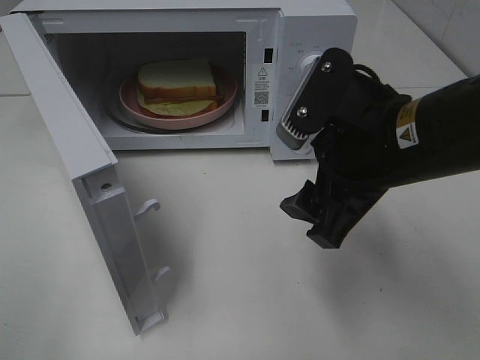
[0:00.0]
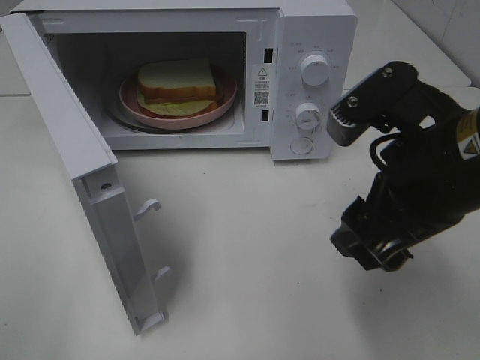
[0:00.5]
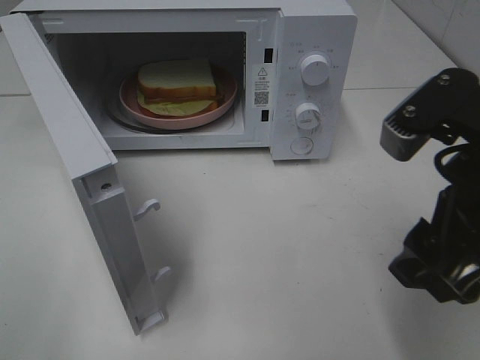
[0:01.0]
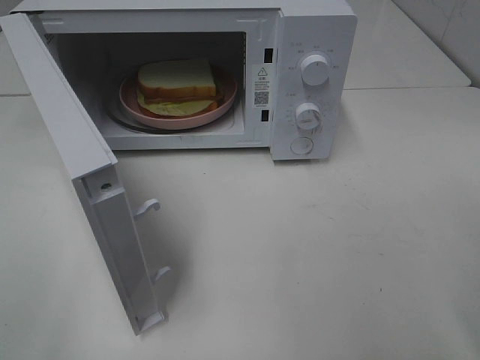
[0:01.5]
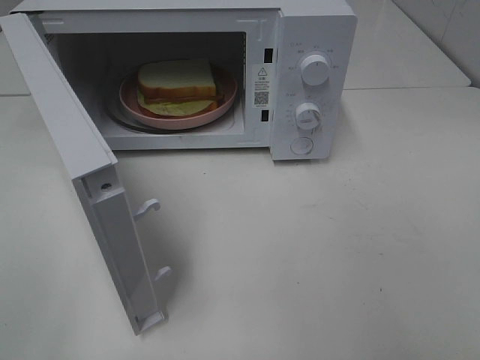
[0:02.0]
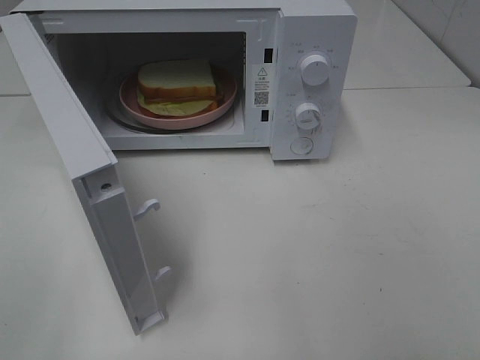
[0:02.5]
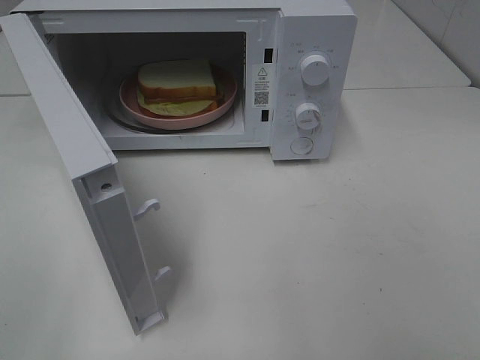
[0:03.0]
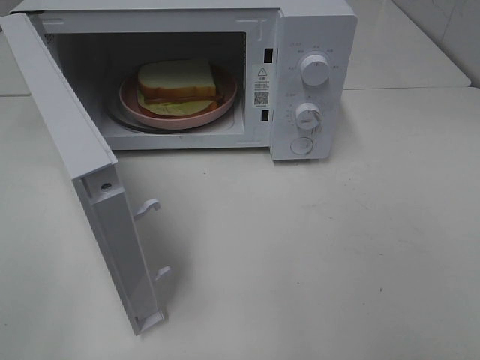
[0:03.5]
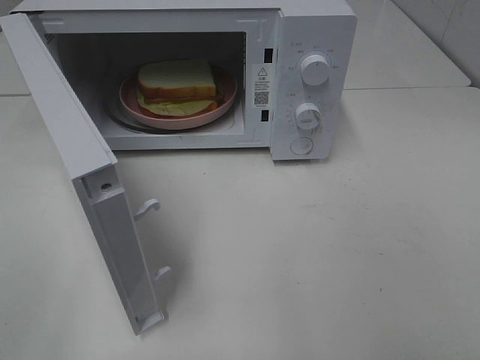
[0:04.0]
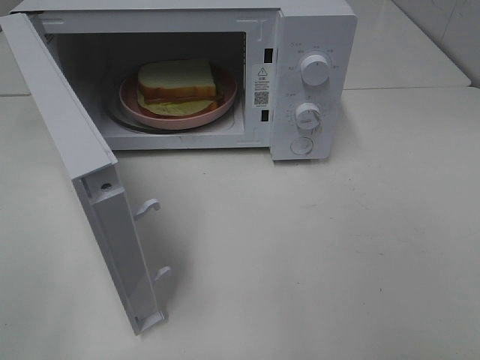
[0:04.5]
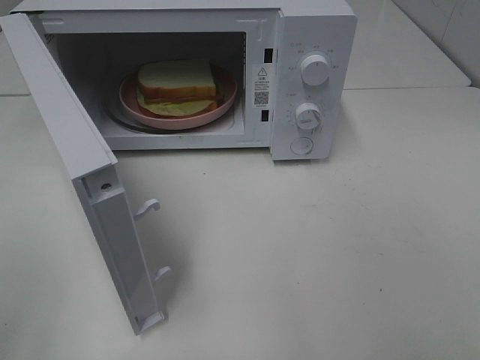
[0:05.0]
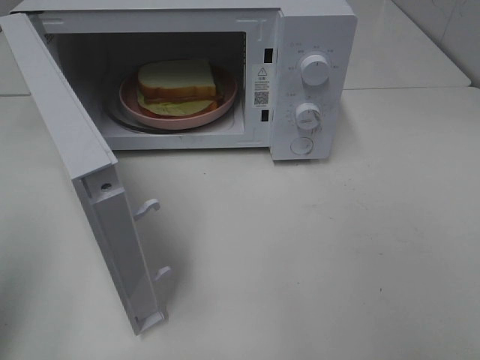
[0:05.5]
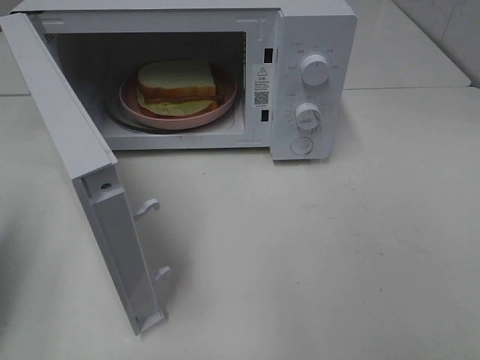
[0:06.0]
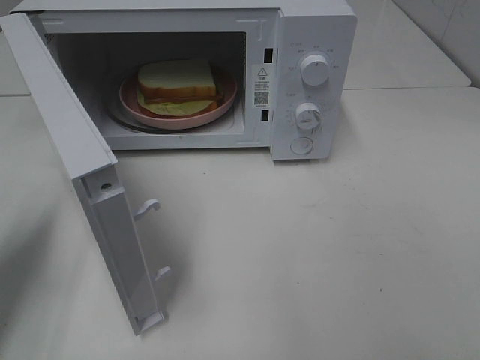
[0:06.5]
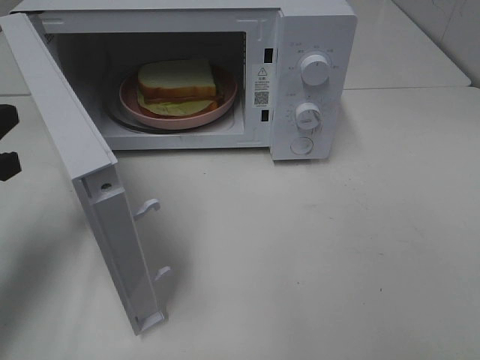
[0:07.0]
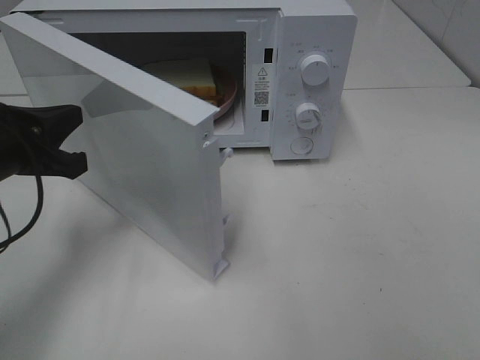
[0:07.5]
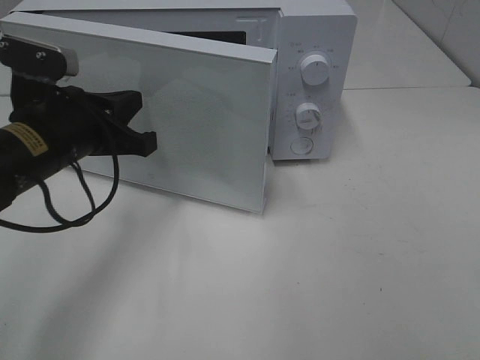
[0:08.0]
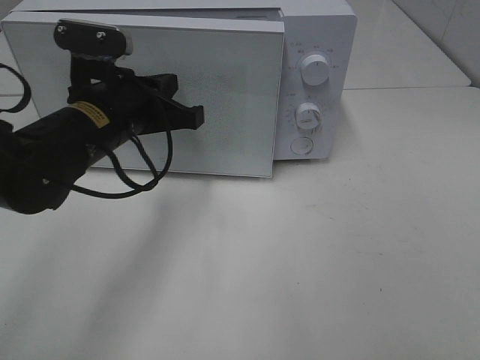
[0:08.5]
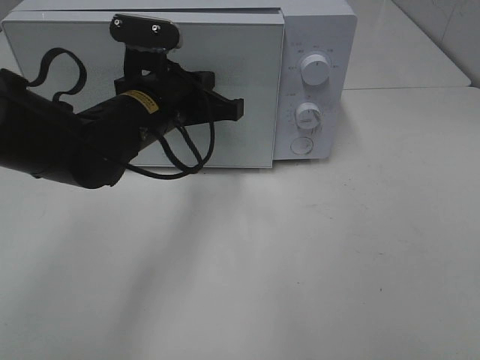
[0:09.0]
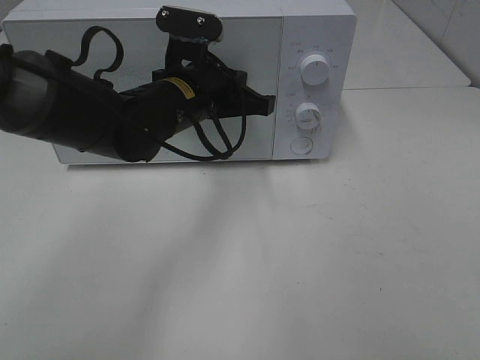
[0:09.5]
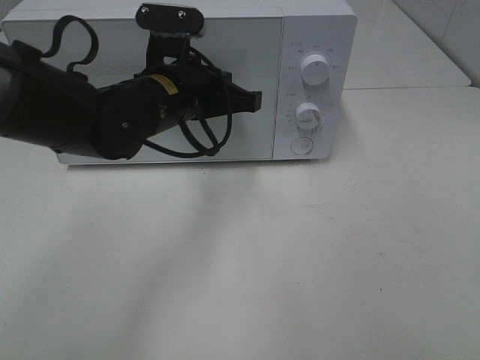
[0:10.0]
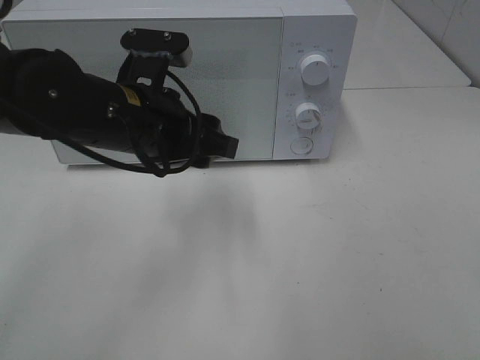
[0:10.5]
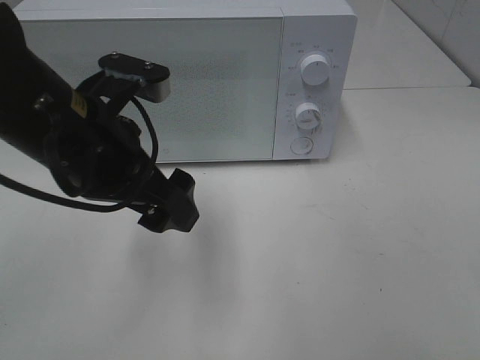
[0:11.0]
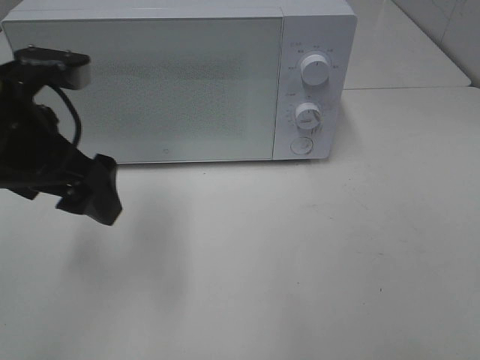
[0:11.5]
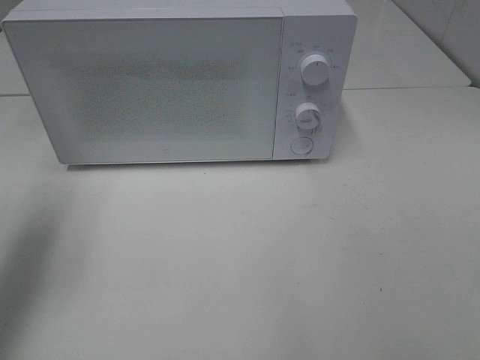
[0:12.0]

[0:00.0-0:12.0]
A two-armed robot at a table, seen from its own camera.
Task of the whole recording: Heat Sandwich.
Step, 0:00.0 to 0:10.0: Left hand: close the microwave door.
0:00.0 to 0:02.0: The right gripper heads to the right and backward, covering approximately 20 cm.
0:04.0 to 0:06.0: The left gripper moves forward, approximately 15 cm, and closes.
0:06.0 to 0:08.0: The left gripper travels to the right, forward and downward by roughly 20 cm.
0:08.0 to 0:10.0: The left gripper goes roughly 10 cm to the right and forward.
0:10.0 to 0:12.0: The left gripper is displaced to the left by about 25 cm, and opens.

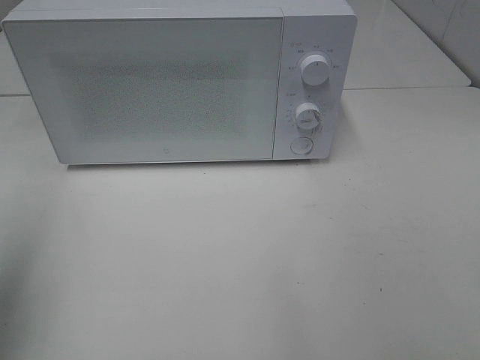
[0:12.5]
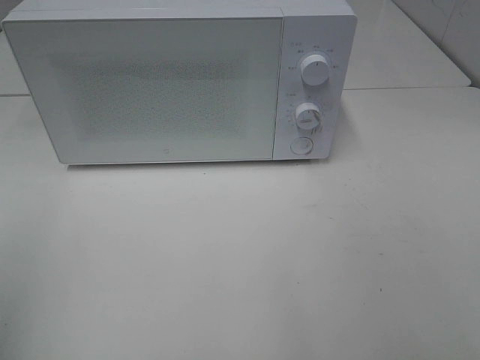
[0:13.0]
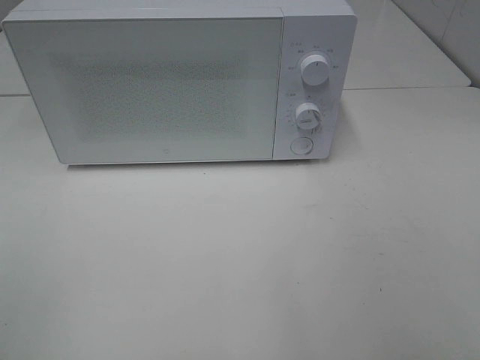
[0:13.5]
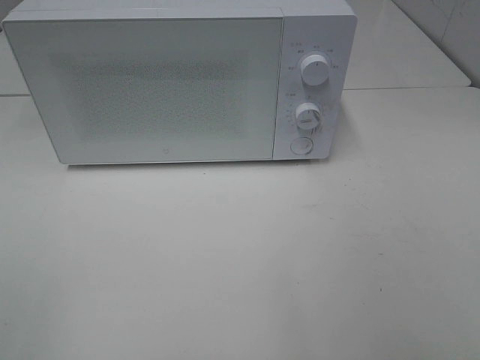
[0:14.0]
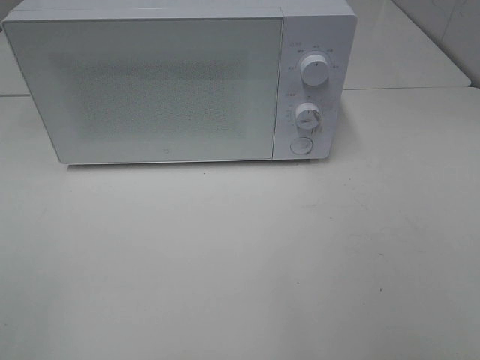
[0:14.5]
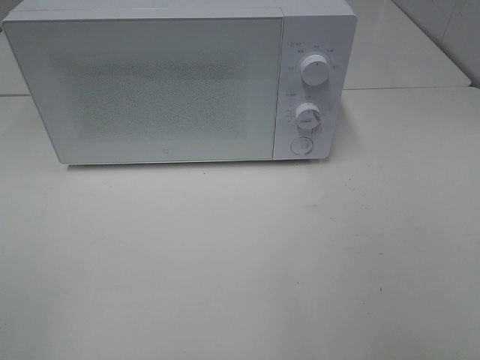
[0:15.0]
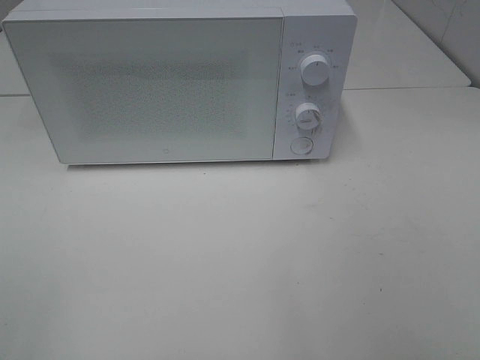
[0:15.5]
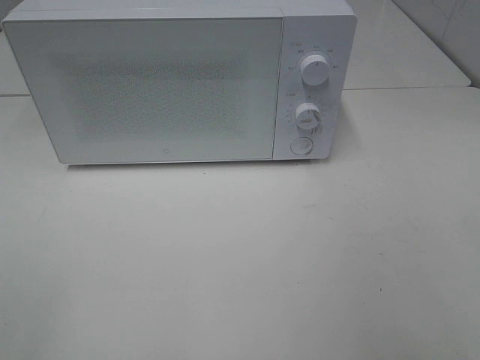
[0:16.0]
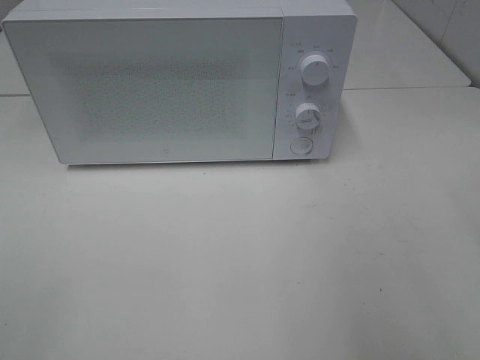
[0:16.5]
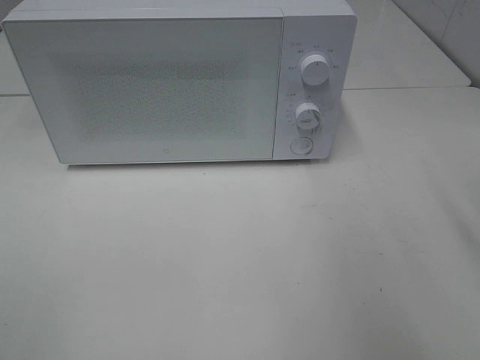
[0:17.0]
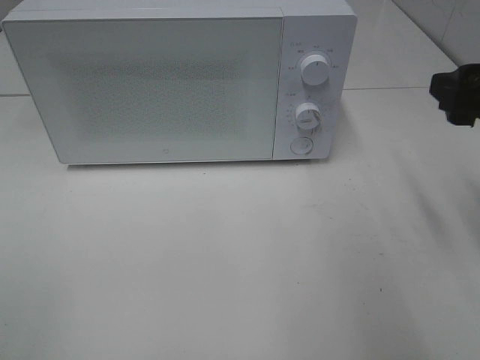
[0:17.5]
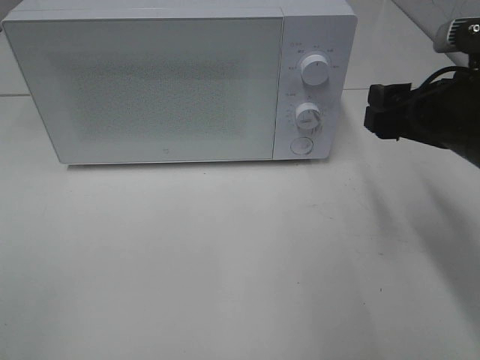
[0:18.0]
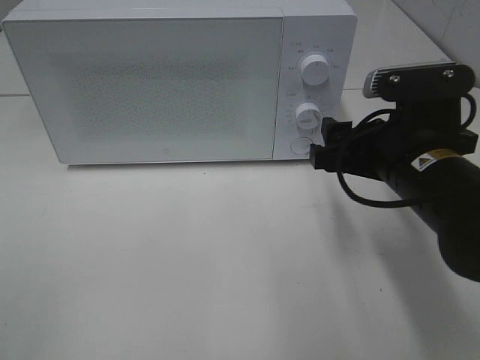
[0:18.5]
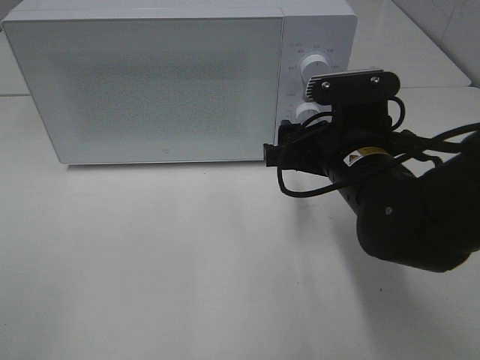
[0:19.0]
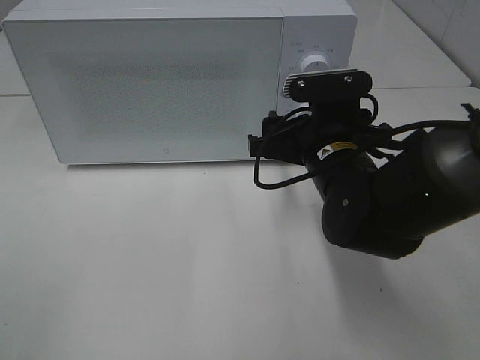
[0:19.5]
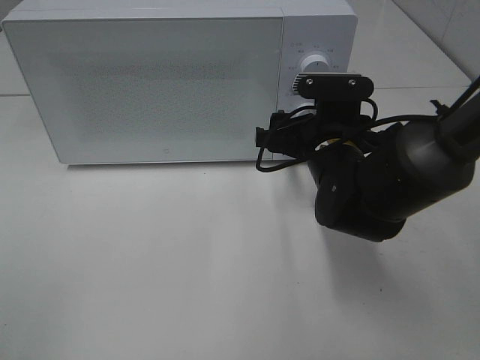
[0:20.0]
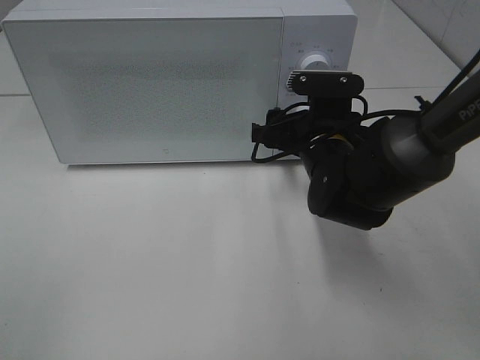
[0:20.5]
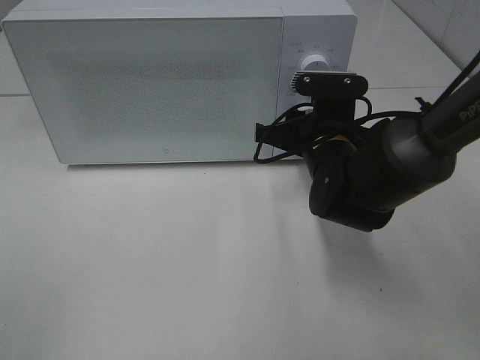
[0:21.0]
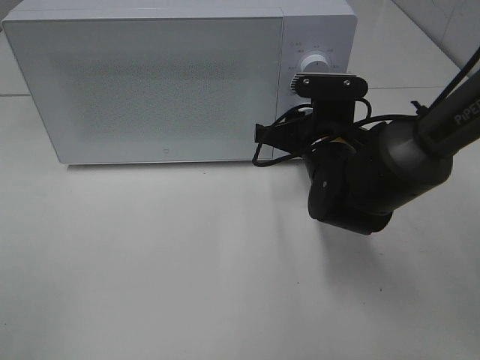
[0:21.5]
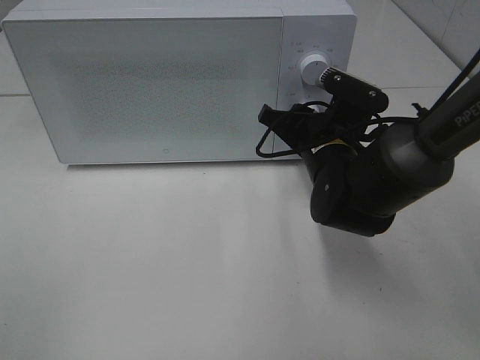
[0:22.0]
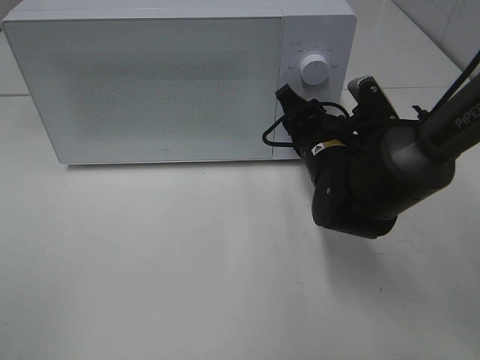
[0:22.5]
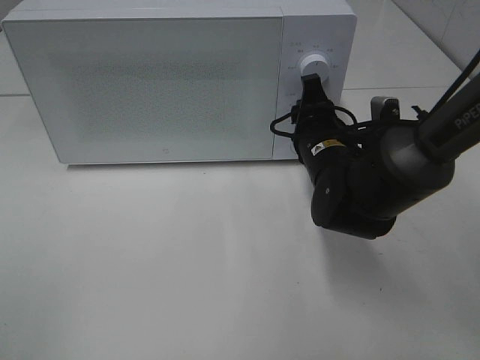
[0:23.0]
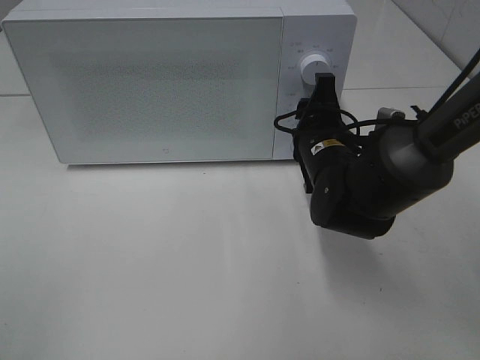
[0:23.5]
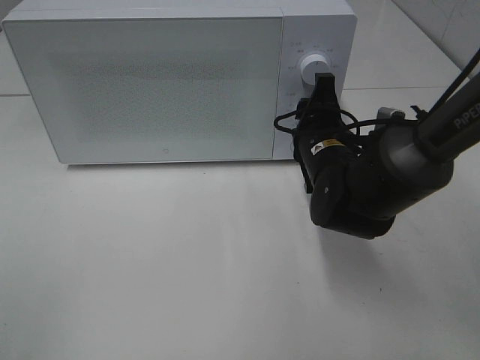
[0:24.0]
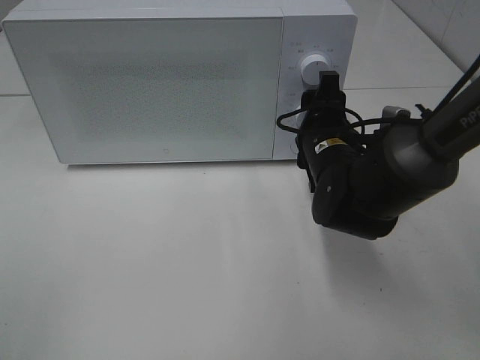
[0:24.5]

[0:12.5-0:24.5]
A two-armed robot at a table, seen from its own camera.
Task of the whole recording: Heat Sandwich.
0:12.5 to 0:14.5: The left gripper is displaced backward by about 15 cm.
0:16.5 to 0:18.5: The right gripper travels downward, to the left and forward by approximately 20 cm.
0:18.5 to 0:20.5: The right gripper heads forward, downward and to the left, covering about 15 cm.
0:20.5 to 0:22.5: The right gripper closes.

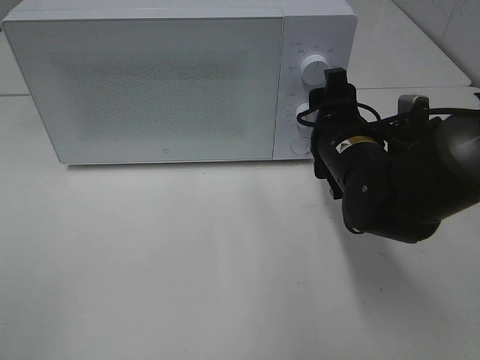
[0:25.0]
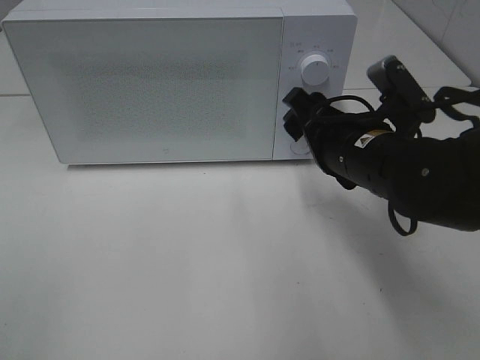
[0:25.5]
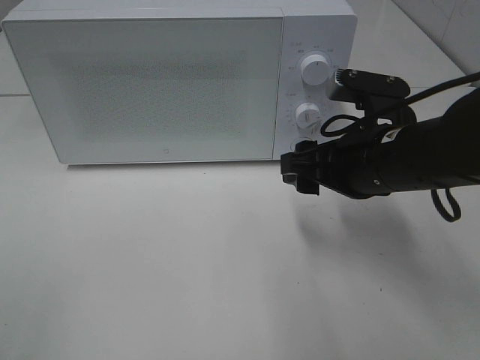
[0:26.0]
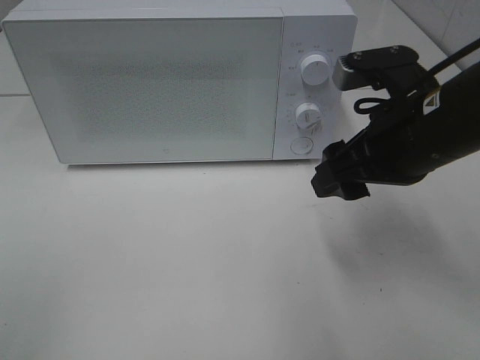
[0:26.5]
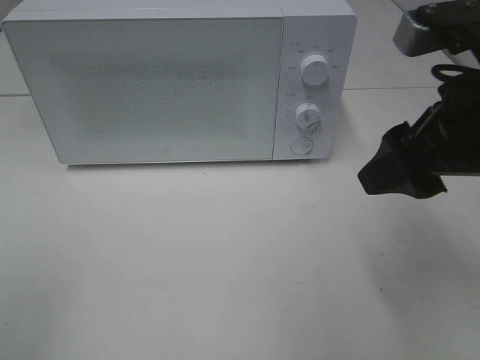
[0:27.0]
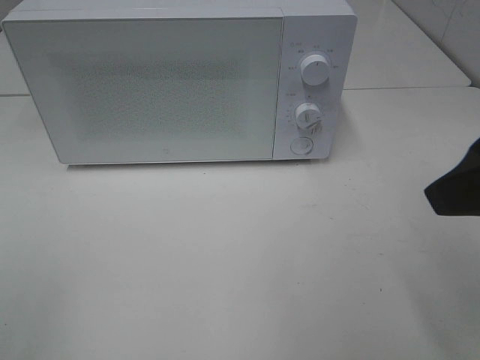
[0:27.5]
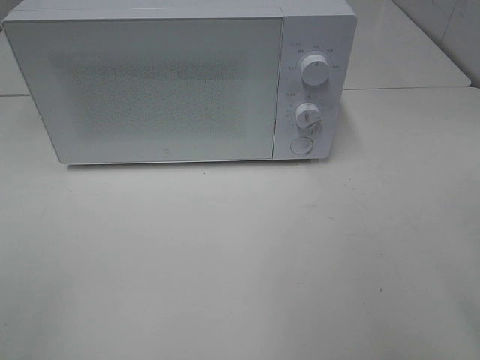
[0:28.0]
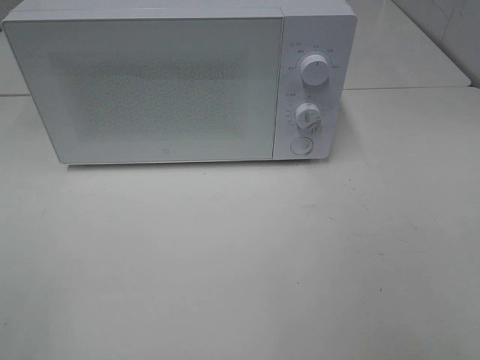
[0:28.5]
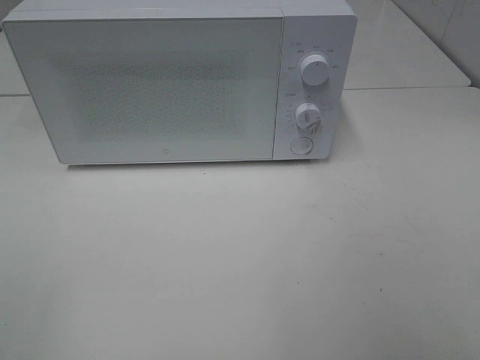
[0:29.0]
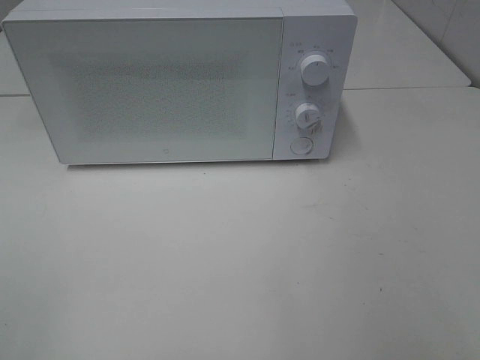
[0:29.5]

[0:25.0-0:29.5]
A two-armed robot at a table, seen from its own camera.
Task of the whole recording: Heat Sandwich.
0:25.0 to 0:27.0: The right gripper is displaced upward and backward by roughly 15 cm.
0:27.0 to 0:29.5: The right gripper goes some 20 cm backward and to the right.
